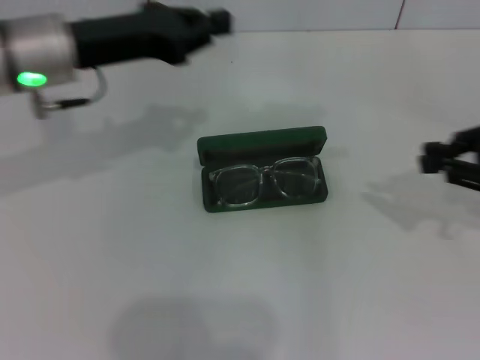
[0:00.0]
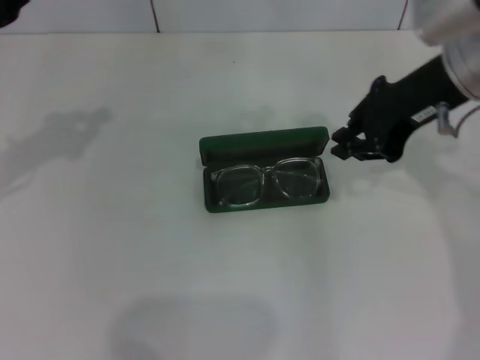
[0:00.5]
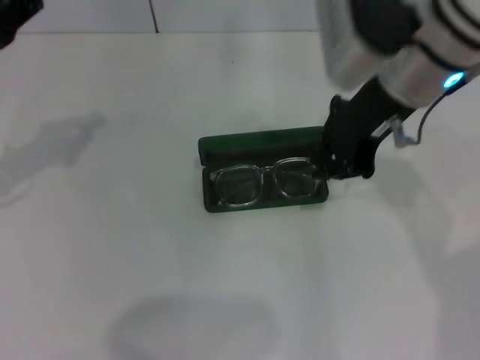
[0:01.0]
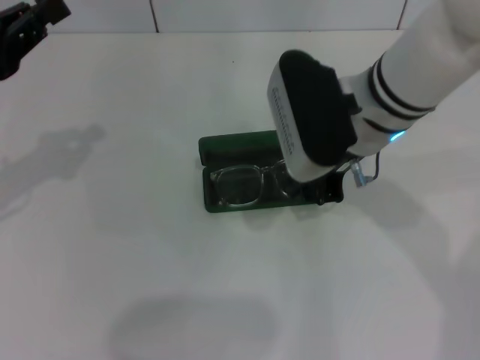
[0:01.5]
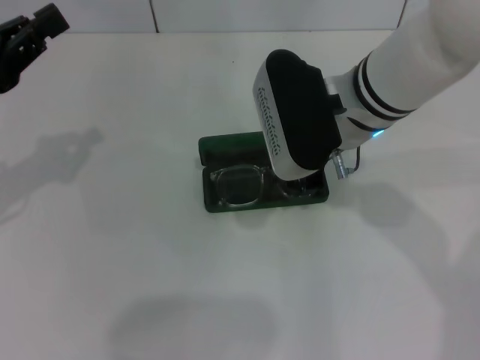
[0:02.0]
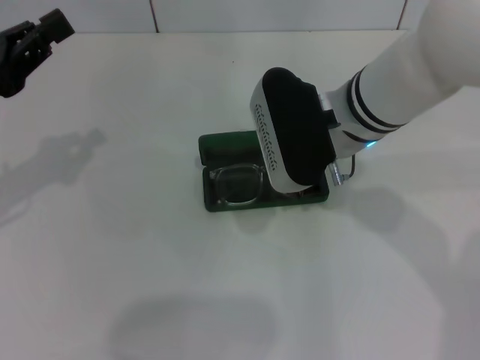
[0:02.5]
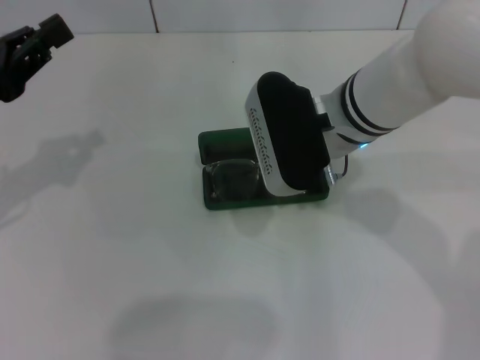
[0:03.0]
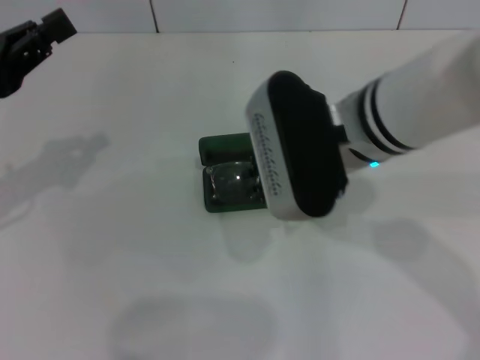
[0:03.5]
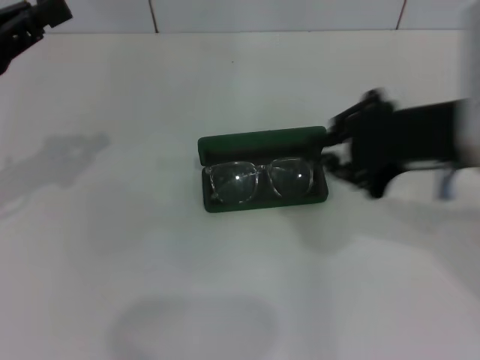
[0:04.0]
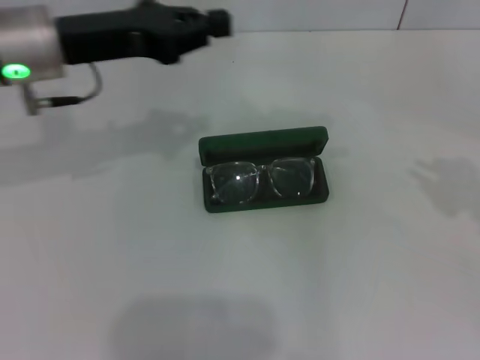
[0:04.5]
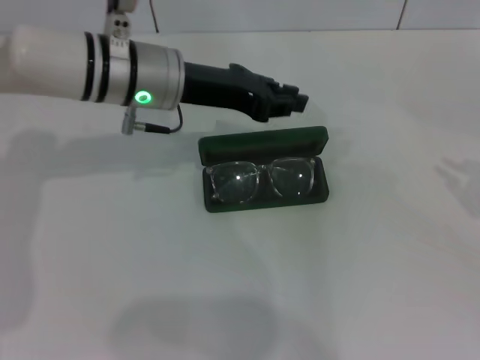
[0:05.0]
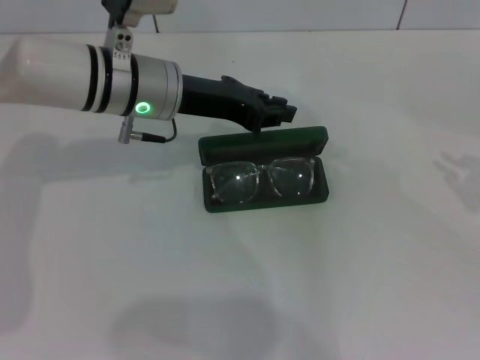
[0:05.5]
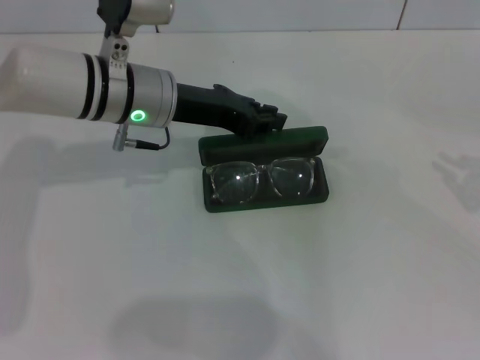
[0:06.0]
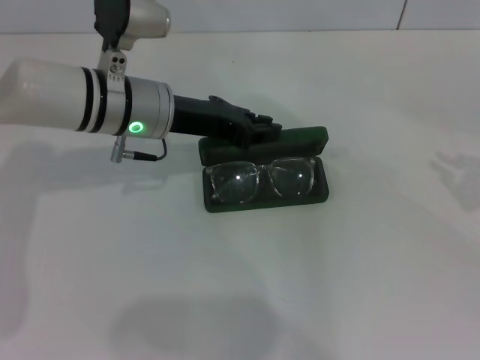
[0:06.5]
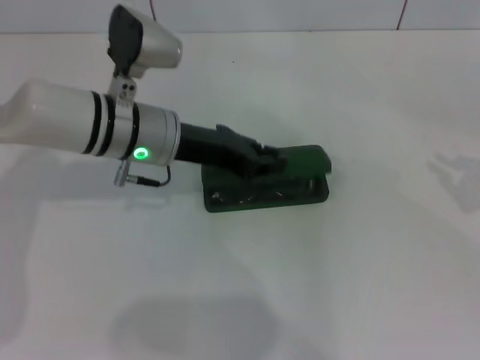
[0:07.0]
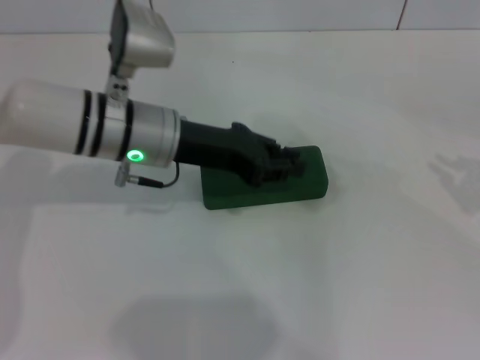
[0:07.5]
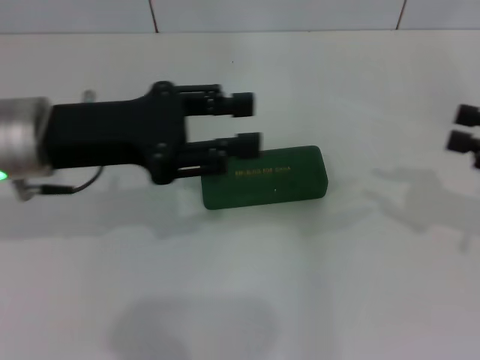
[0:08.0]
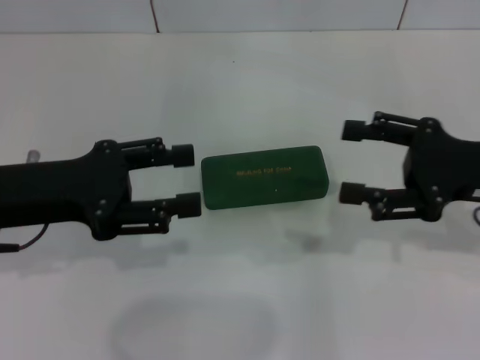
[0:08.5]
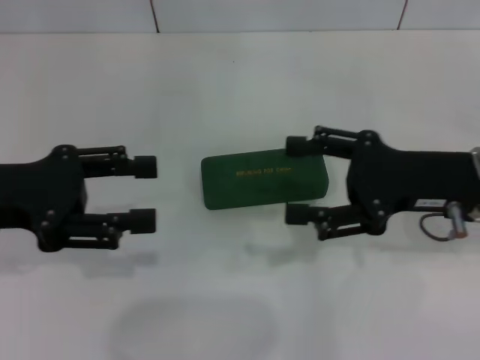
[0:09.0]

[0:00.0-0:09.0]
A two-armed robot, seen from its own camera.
Step, 0:00.0 to 0:07.0: Close the glasses case with your left hand.
0:00.0 to 0:02.0: The right gripper heads to the left, covering some 25 cm; the left gripper heads to the left and backward, covering roughly 15 cm.
0:02.0 to 0:04.5: The right gripper heads to the right, covering roughly 30 cm. Meanwhile the left gripper shifts roughly 15 cm to the right and forward.
0:04.5 to 0:07.0: The right gripper travels downward by some 5 cm, while the left gripper travels downward and to the right by approximately 10 cm.
0:07.0 to 0:09.0: The right gripper is displaced to the left by roughly 15 cm, and opens; the left gripper shifts approximately 20 cm to the left and backward, and opens its fingers.
